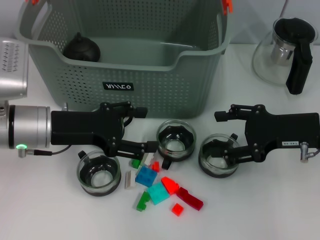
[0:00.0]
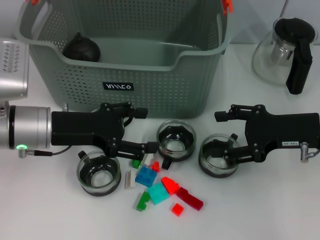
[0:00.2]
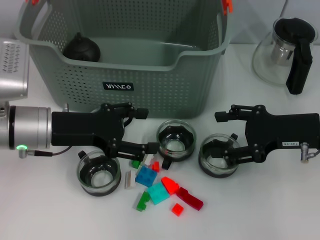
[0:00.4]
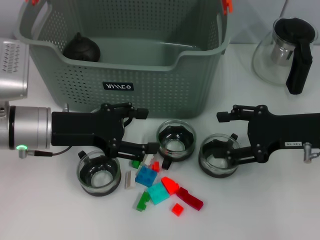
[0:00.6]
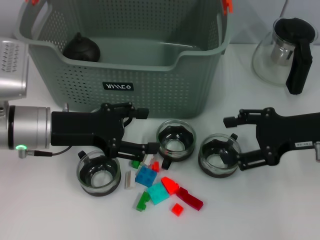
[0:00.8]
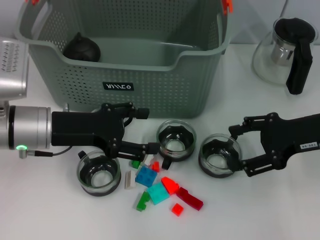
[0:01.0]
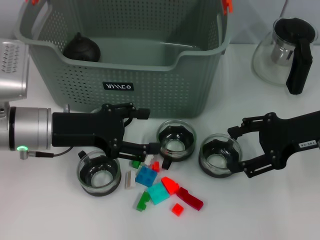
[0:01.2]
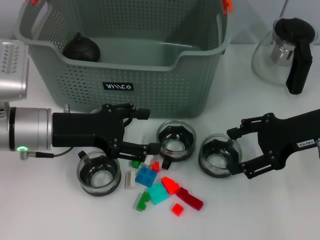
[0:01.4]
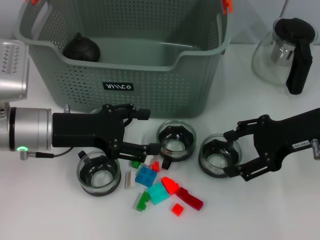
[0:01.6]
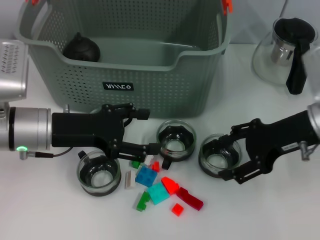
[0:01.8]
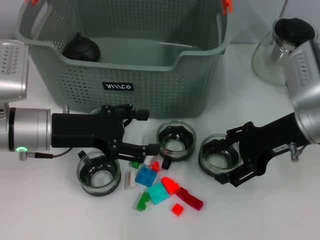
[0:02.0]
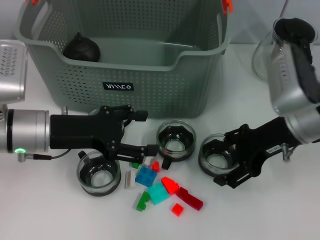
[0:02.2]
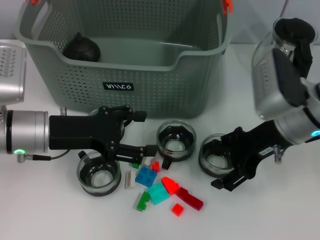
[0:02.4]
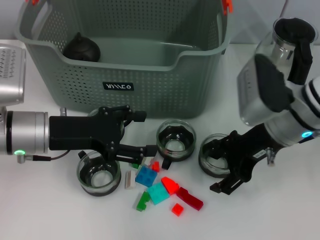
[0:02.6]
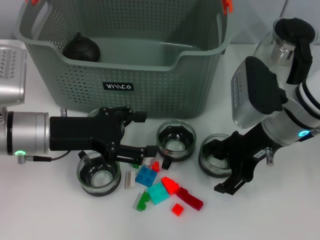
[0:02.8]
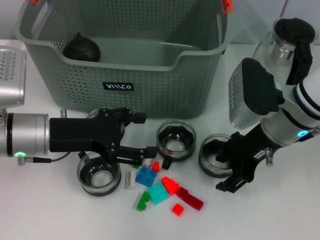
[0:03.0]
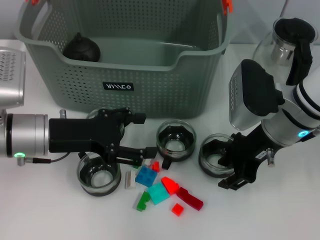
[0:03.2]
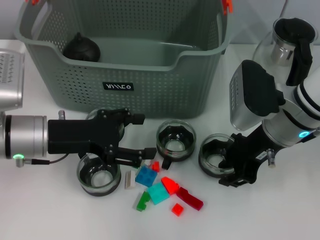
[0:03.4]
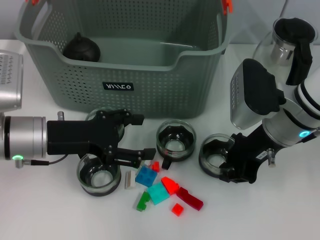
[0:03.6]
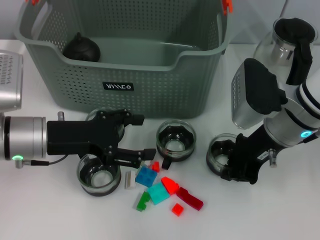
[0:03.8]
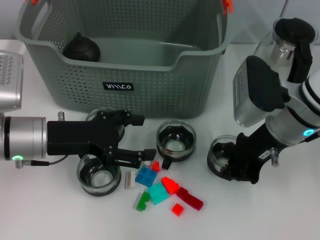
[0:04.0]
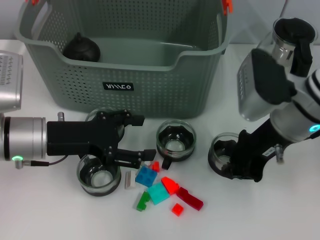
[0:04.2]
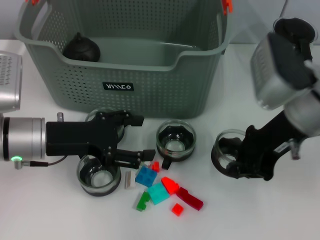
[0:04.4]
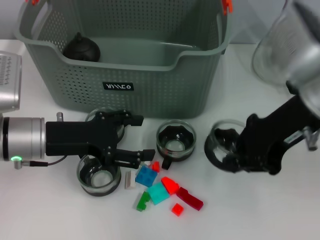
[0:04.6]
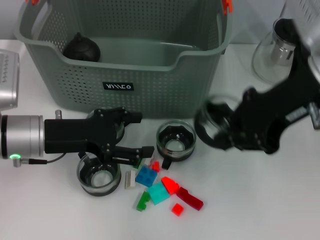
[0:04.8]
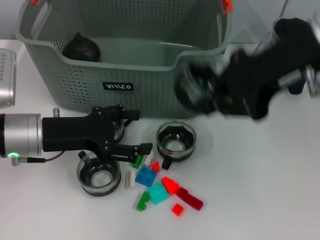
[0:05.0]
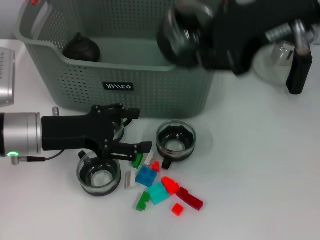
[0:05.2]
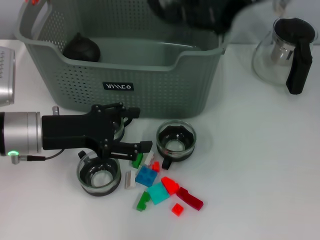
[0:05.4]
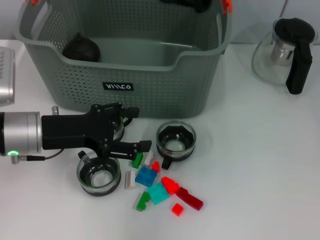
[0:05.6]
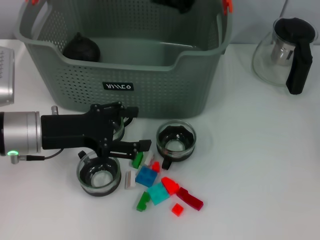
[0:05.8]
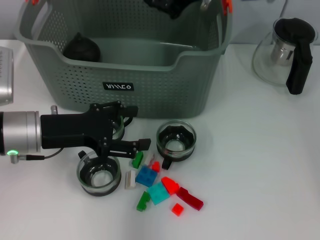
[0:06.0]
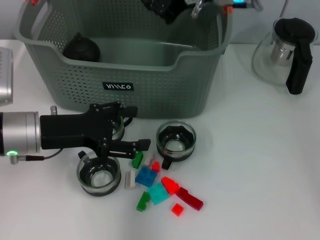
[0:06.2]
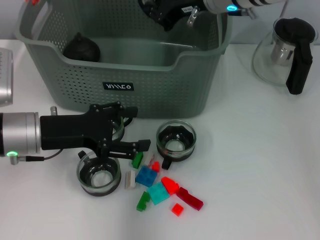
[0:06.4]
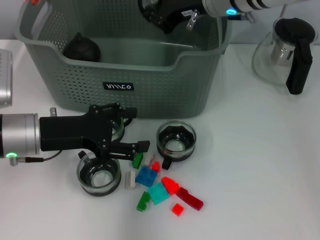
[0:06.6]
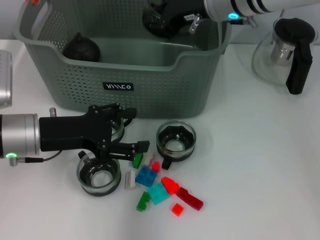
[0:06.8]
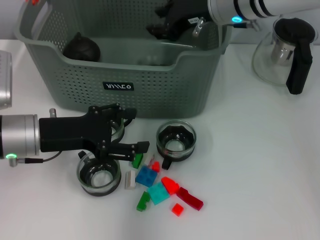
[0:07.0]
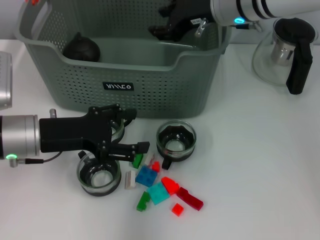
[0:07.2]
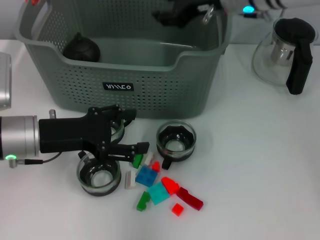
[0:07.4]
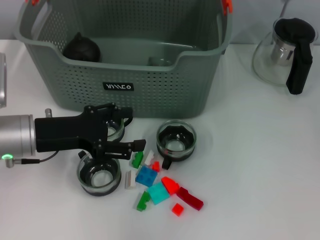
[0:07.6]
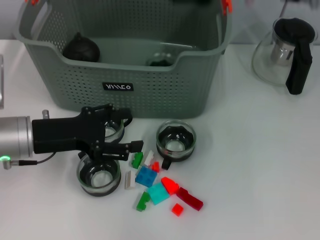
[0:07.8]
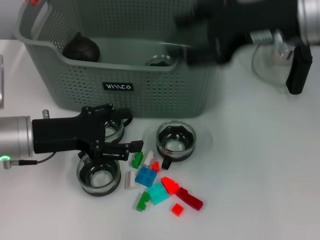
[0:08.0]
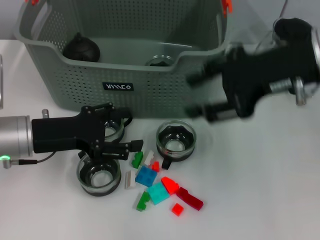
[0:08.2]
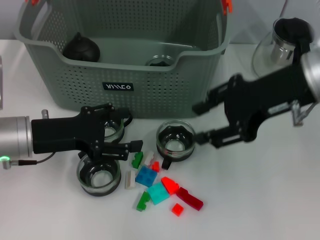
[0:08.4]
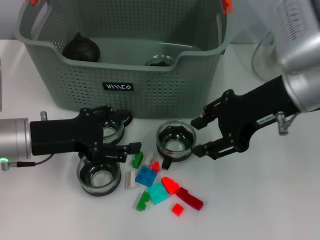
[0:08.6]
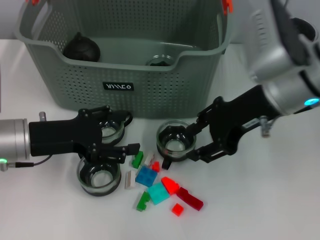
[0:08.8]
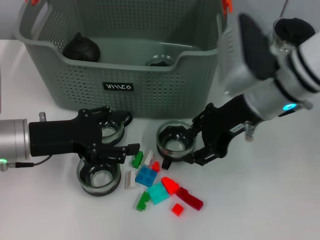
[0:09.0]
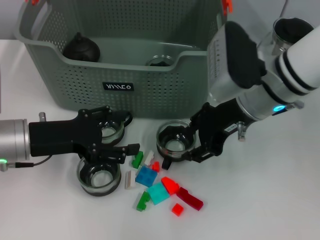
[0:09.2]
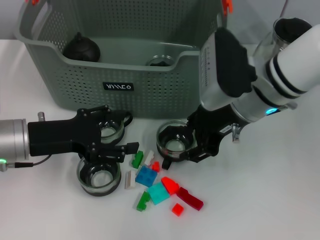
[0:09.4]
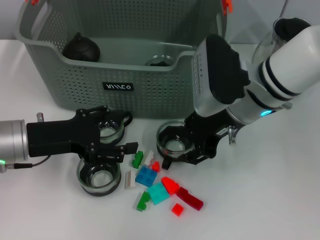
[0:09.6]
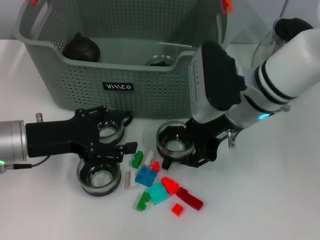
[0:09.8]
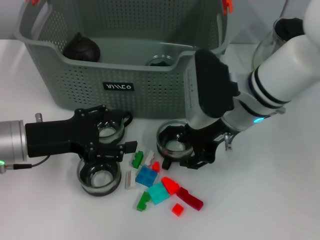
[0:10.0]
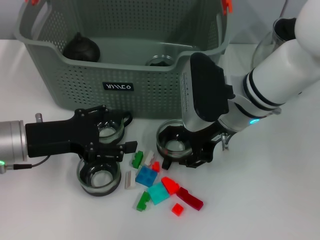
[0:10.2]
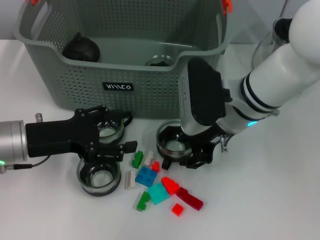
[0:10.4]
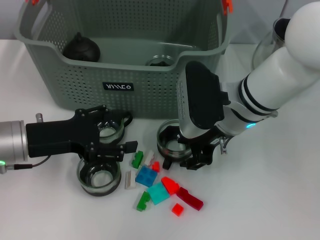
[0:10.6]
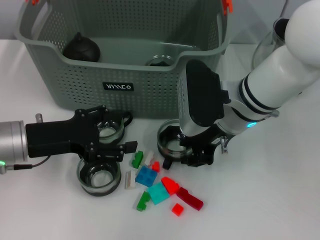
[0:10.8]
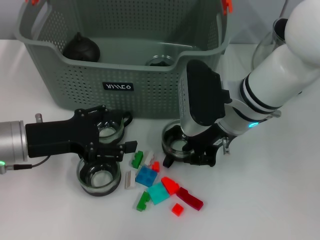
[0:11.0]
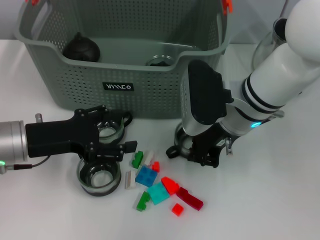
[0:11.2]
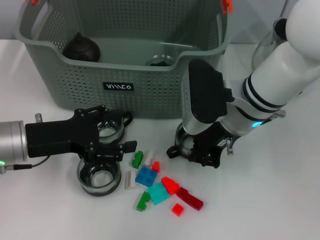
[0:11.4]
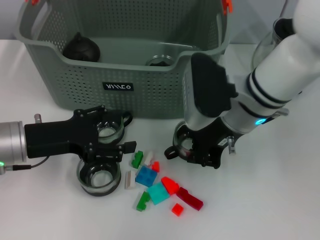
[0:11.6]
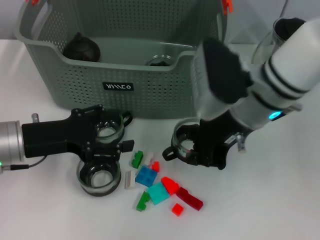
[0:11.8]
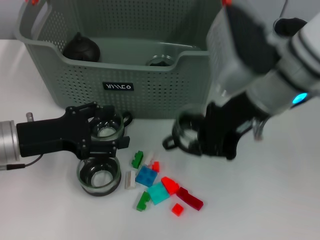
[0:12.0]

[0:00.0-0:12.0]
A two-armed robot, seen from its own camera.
Task of the whole recording: pick up the teacup on the table and place it into the storage bin, pick up the block on the table and place it into the storage bin.
Step, 0.0 to 3.8 s: Grasp the cup with right gripper.
Step, 4.0 to 7.0 s: Place the cup in the storage box with right gripper.
Step, 7.2 to 11.2 s: Grasp the cup with right gripper.
0.0 to 1.6 s: There are only small adjustments of the grippers.
1.6 to 3.0 s: The right gripper shifts about 10 cm to the left.
3.0 to 4.4 s: The right gripper ends up roughly 5 cm from where it was, and closes.
4.4 to 6.0 s: The right gripper heads forward, upward and to the left, covering roughly 15 cm.
6.0 to 7.6 s: The right gripper opens.
7.6 to 9.0 s: The right gripper travels backward and downward by approximately 10 cm.
9.0 to 10.4 s: The right gripper changes place by some 5 cm.
10.4 to 12.0 s: The right gripper shifts about 10 cm upward, and closes up.

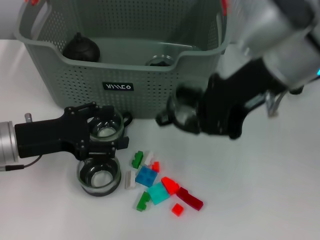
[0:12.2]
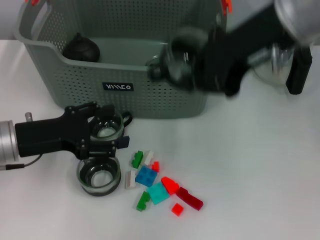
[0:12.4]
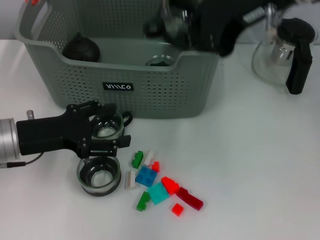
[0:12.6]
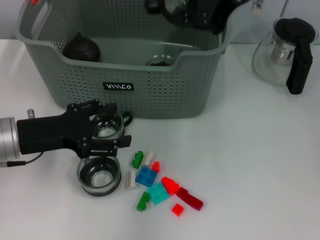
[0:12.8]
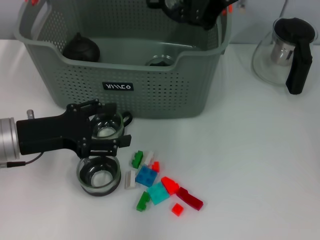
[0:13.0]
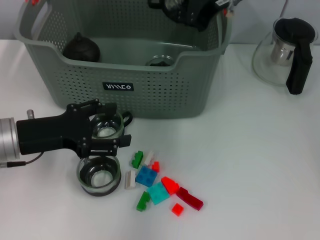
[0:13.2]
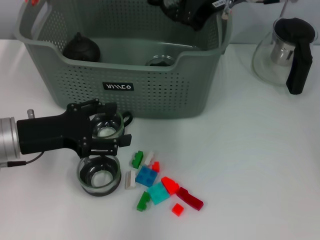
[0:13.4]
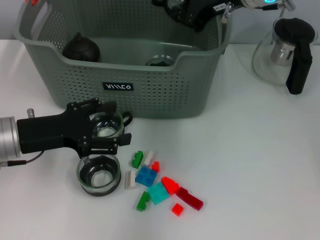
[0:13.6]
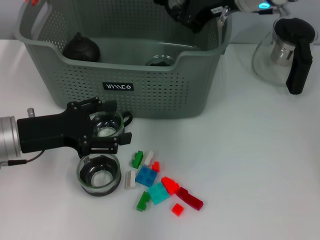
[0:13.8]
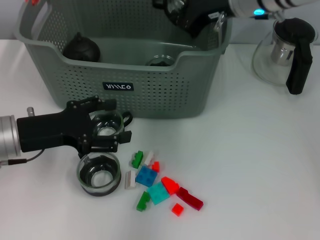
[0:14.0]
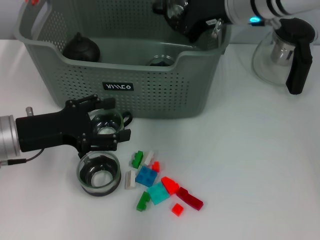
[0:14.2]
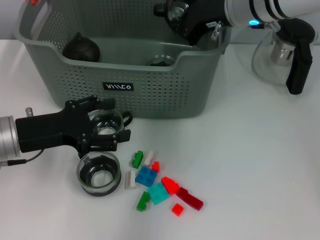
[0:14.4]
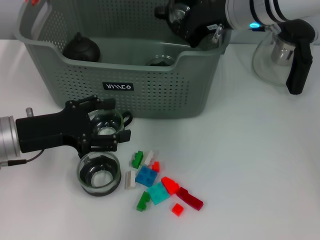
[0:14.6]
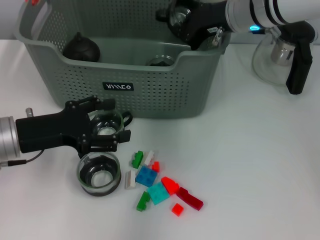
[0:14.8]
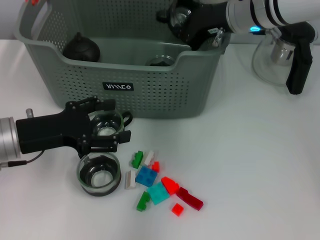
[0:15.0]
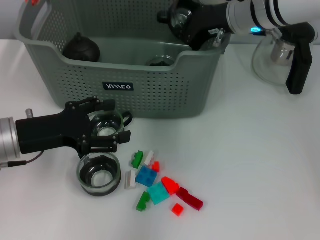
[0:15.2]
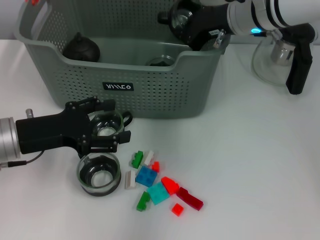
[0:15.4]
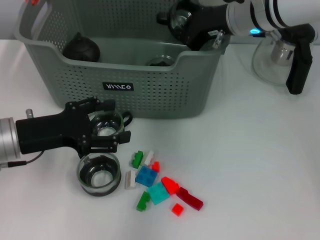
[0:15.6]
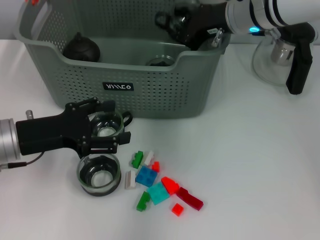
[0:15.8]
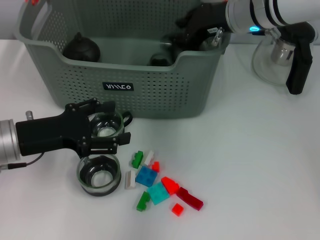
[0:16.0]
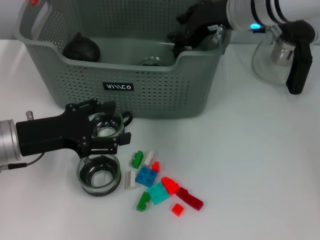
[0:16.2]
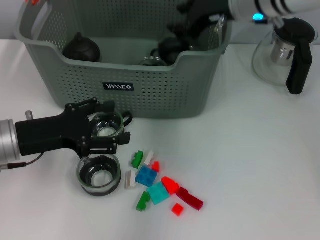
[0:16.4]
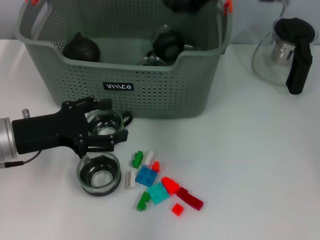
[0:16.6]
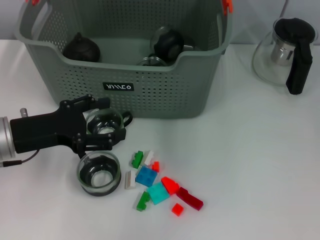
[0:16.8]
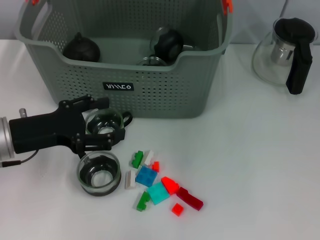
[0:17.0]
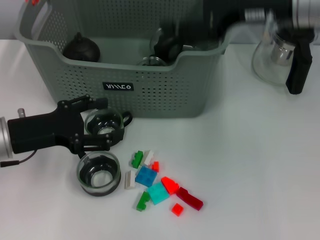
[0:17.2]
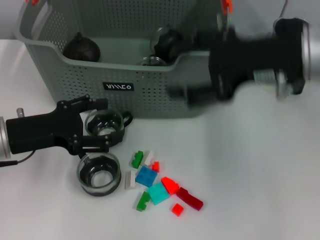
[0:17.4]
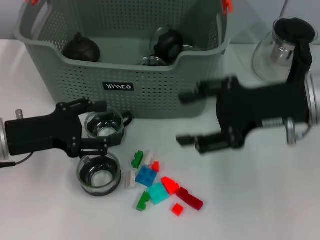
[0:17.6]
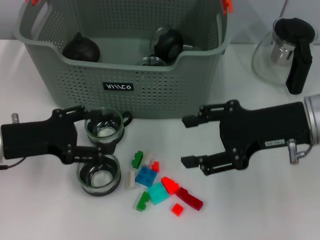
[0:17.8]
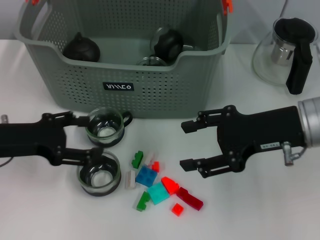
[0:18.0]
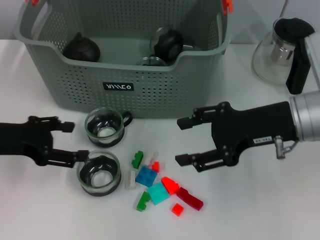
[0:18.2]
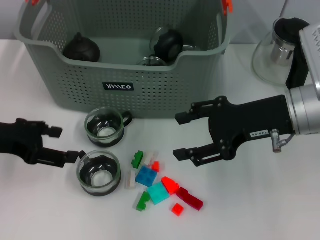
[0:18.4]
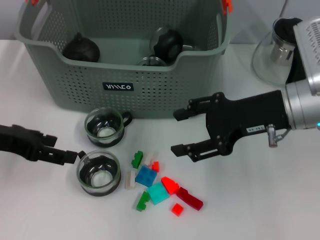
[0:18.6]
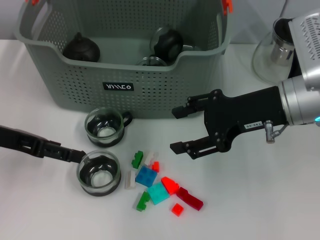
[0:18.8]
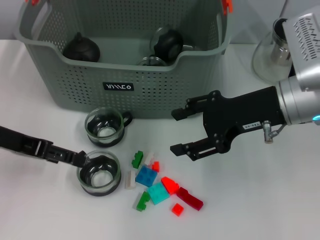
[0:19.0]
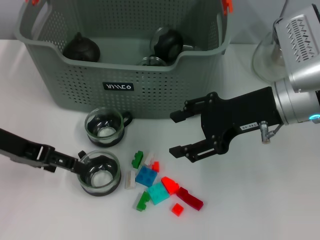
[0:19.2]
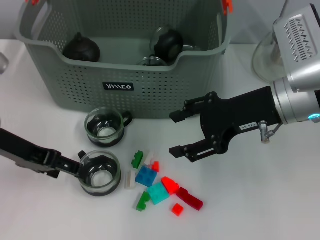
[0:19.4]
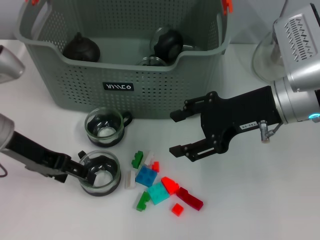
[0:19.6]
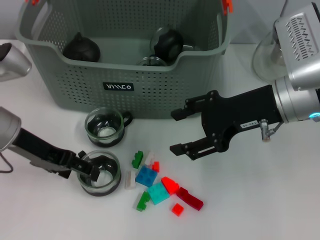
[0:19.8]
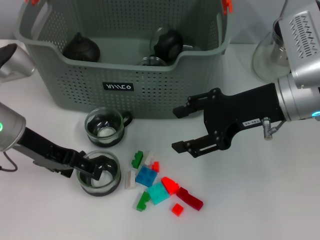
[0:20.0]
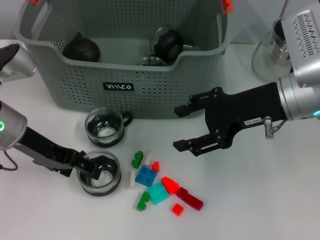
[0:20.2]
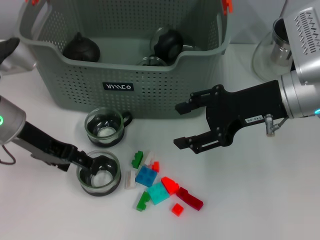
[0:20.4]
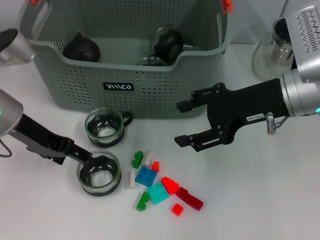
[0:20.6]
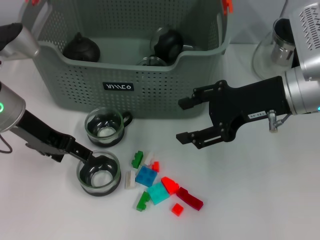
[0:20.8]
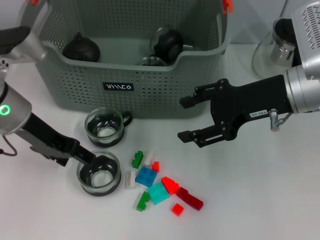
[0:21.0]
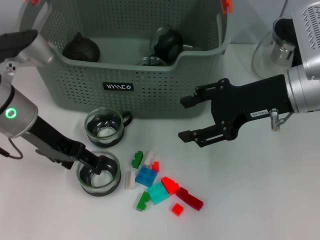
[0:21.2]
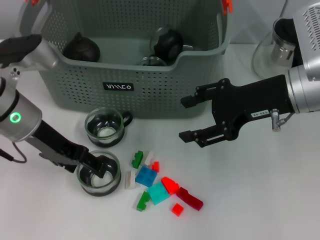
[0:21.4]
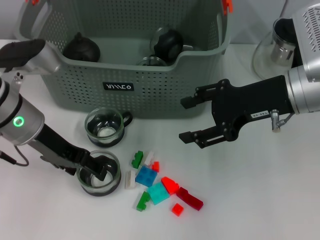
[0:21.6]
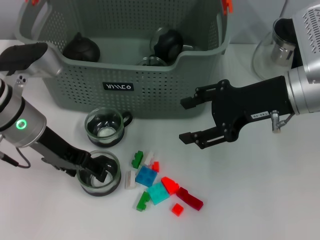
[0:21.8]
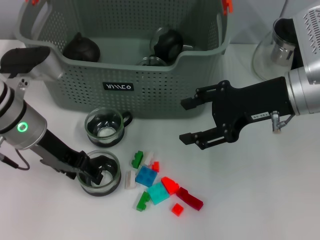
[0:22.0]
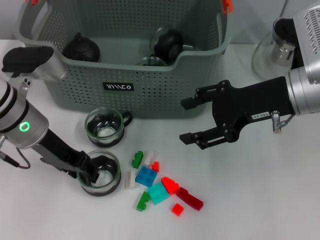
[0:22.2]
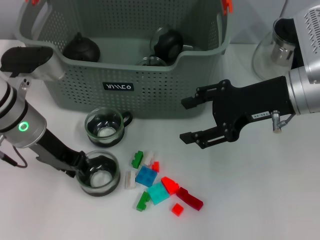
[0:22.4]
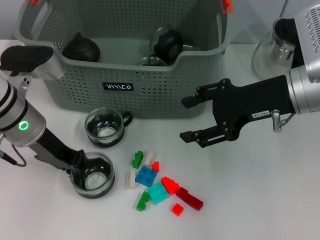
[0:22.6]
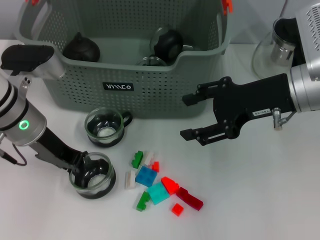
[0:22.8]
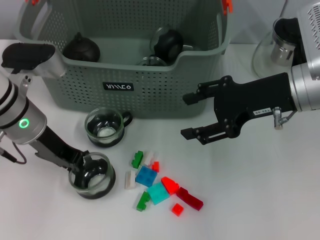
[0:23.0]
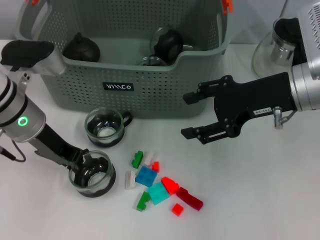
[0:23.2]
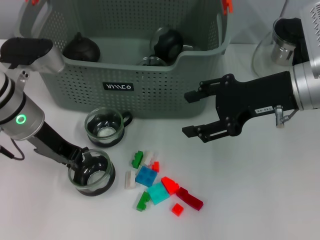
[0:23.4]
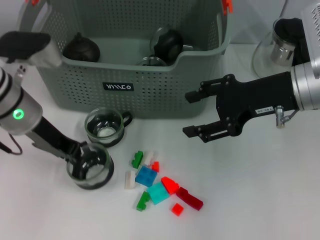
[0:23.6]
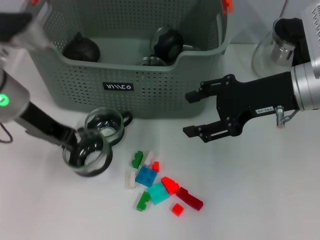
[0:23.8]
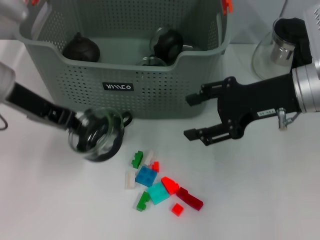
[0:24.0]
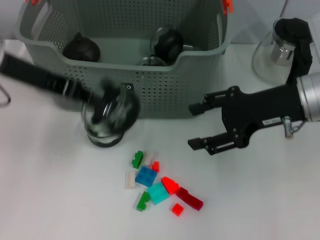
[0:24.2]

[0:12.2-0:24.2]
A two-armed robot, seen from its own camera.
Task of the whole recording: pick up the teacup on the table and place it into the storage bin, pick up the block on the table and place it into the storage bin.
Step, 12.2 to 15.8 s: Place the cup in the storage box with right gripper.
Step, 16.2 to 22.8 s: Grasp the cup with left gripper.
12.2 to 13.8 s: The right gripper is displaced forward by about 15 cm.
13.8 to 15.2 s: There are only small adjustments of the grippers.
15.2 to 16.6 s: The right gripper heads upward, covering approximately 5 cm, and opens its fingers.
16.6 to 18.2 s: The right gripper goes roughly 20 cm backward, downward and to the right.
18.2 to 19.8 s: The left gripper goes roughly 5 cm to the right.
19.8 to 21.2 s: The grippers move only a little.
21.2 to 22.6 s: The left gripper closes up.
22.6 to 24.2 s: The left gripper goes roughly 10 cm upward, and closes.
